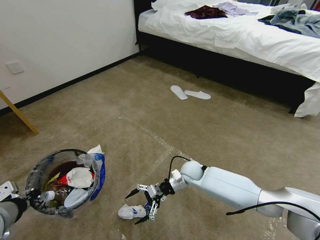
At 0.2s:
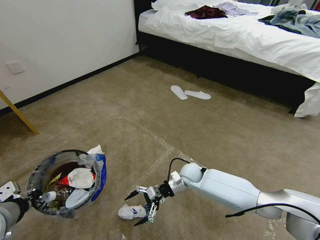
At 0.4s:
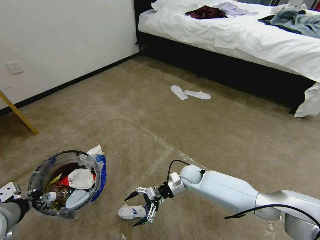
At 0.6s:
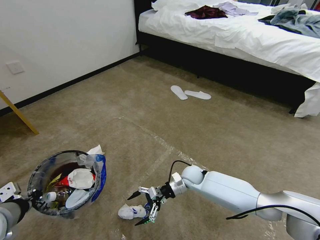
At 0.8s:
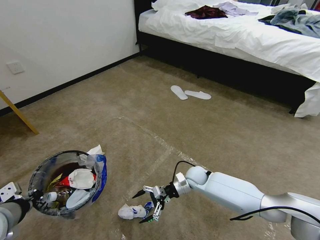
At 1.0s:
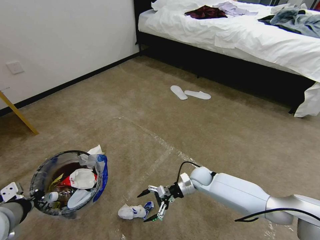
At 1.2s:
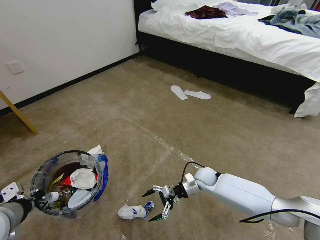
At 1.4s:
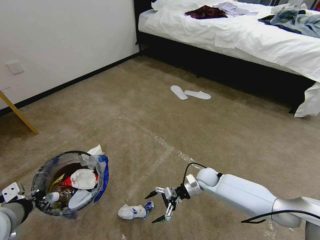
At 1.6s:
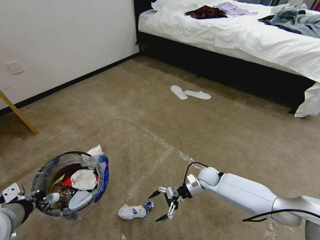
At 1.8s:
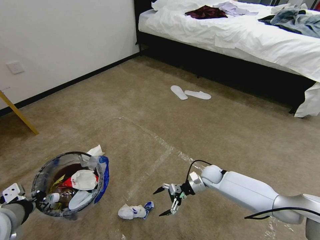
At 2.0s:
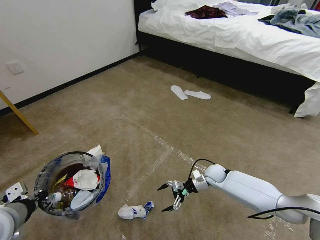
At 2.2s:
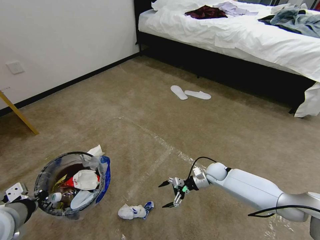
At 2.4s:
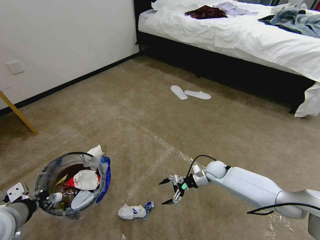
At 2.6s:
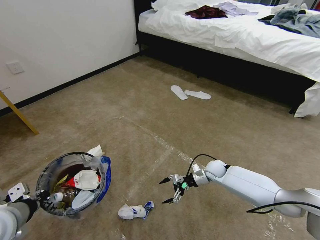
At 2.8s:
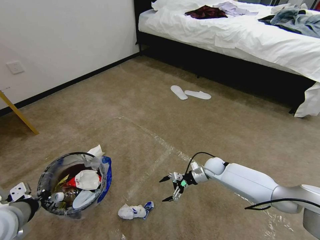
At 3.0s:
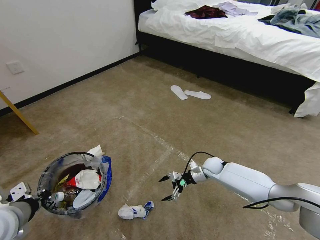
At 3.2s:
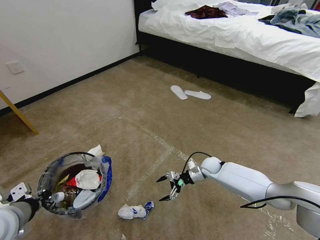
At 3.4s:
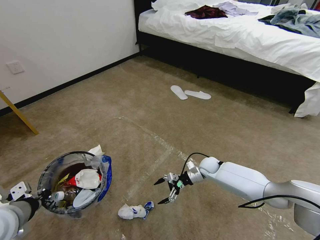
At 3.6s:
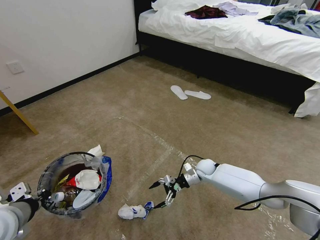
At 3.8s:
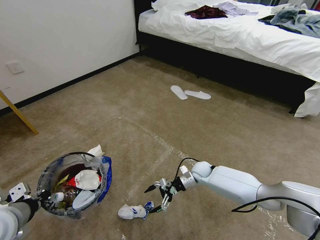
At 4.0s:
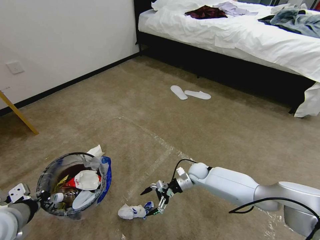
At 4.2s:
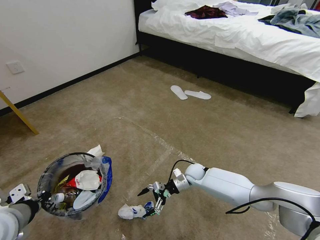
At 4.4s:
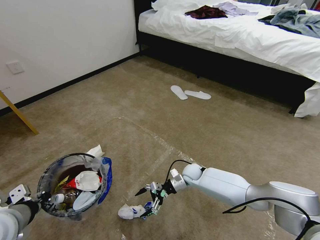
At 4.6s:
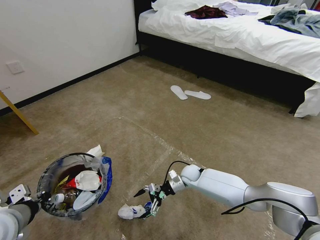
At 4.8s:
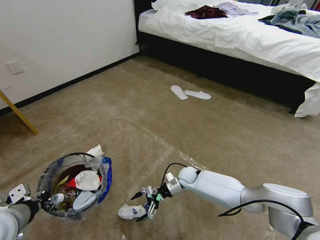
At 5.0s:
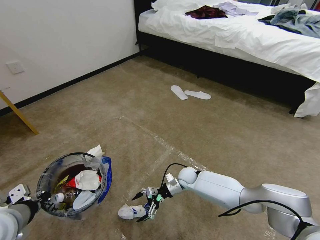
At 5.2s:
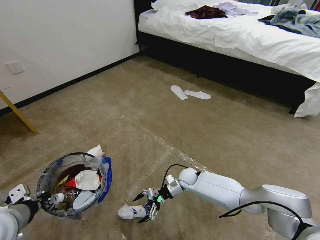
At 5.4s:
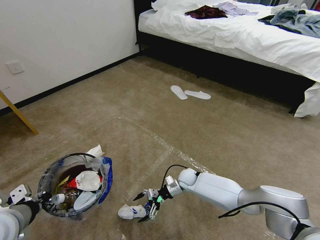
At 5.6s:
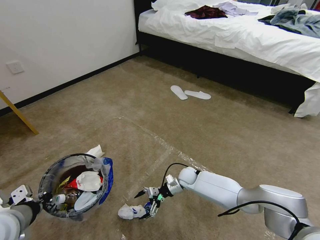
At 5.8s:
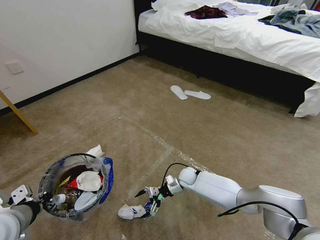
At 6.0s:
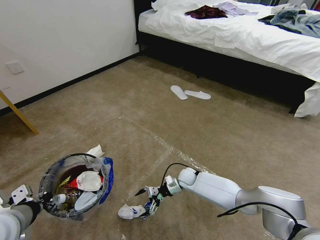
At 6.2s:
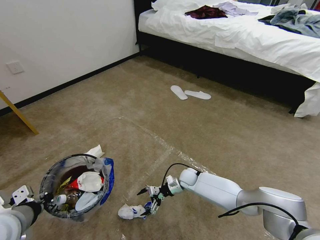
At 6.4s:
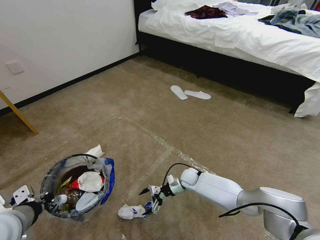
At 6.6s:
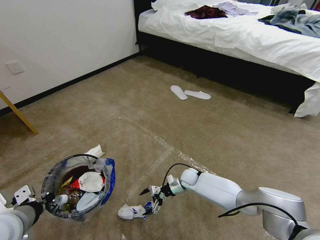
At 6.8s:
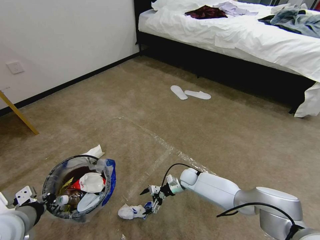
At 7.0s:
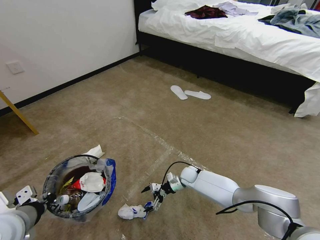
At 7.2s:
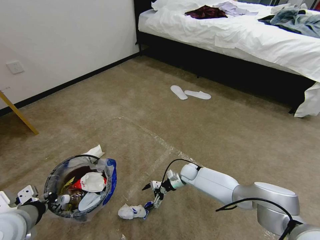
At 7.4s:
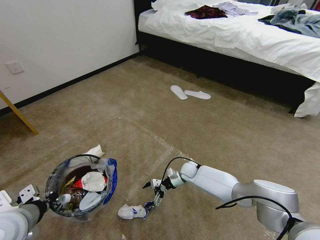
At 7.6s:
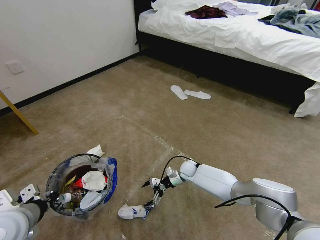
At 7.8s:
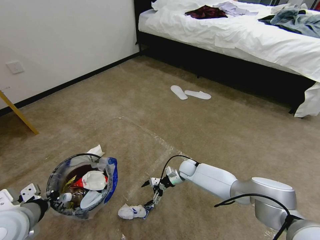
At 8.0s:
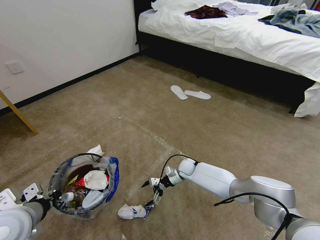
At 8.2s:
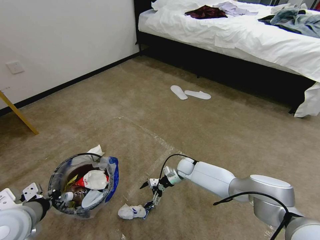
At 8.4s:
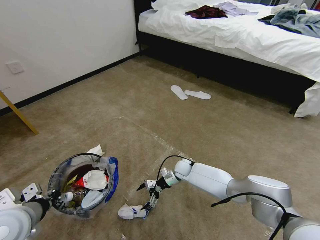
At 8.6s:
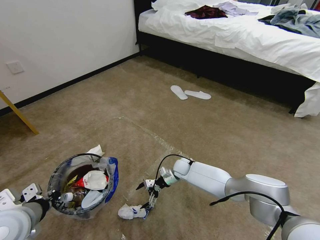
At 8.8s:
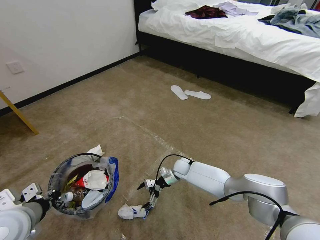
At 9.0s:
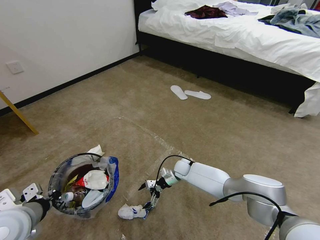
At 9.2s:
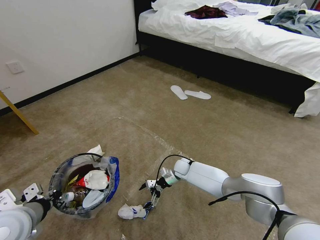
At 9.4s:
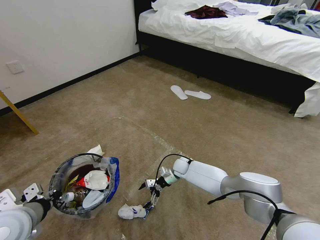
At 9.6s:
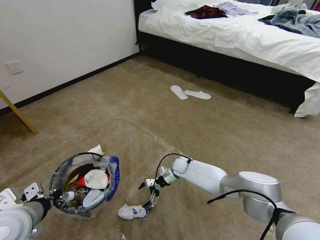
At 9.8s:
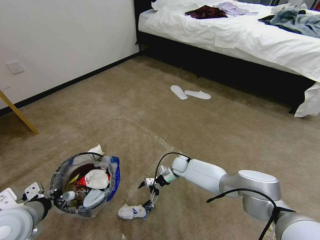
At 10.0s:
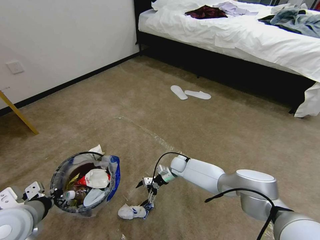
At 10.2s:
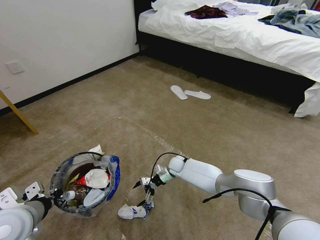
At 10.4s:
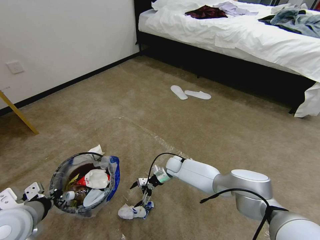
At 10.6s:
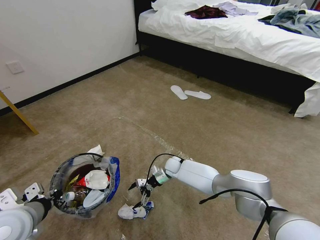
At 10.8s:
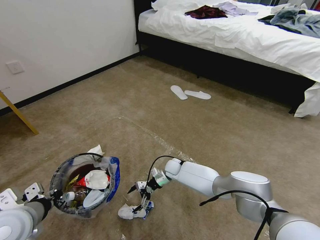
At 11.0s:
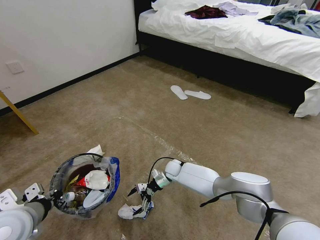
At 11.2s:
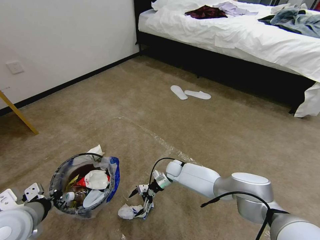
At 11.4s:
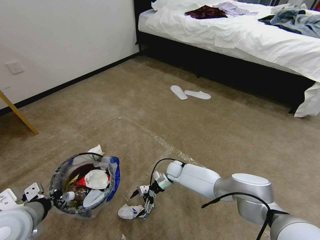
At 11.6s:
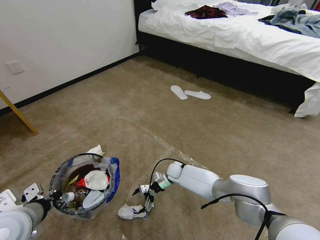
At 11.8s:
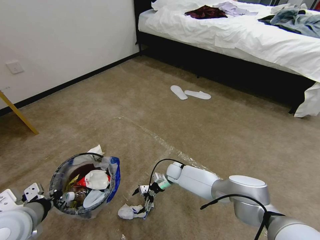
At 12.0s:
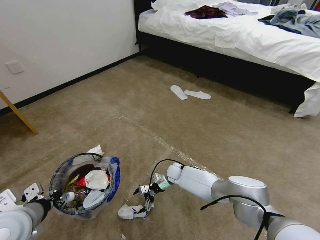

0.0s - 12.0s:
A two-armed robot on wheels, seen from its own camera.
Task of the whole recording: Pick up the trash bin and place the garbage on the floor into it.
0.0s - 1.6s: The right gripper shifts some 10 cm to the right.
1.6s - 3.0s: The right gripper moves about 5 cm.
3.0s - 4.4s: The right gripper goes some 10 cm to the left.
4.4s - 9.0s: The grippers make only small movements.
9.0s - 12.0s: There are only small adjustments of the grippers.

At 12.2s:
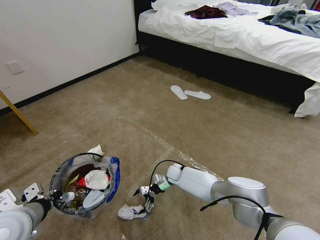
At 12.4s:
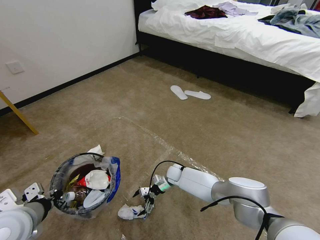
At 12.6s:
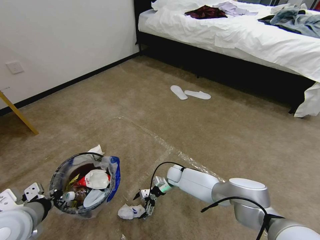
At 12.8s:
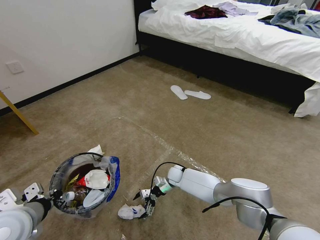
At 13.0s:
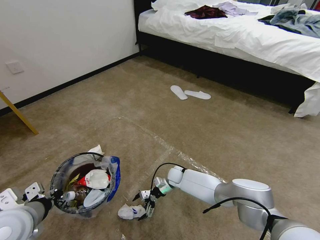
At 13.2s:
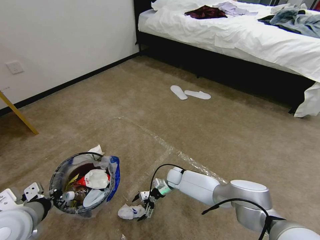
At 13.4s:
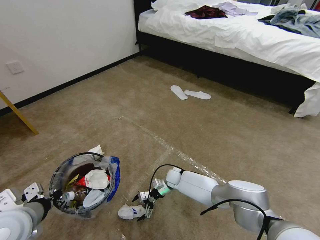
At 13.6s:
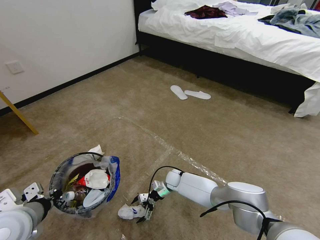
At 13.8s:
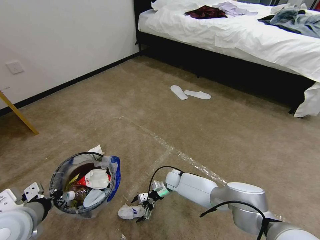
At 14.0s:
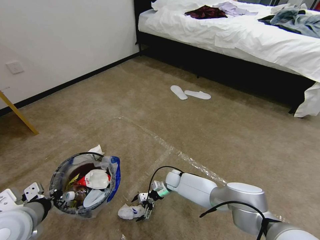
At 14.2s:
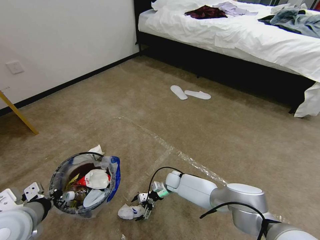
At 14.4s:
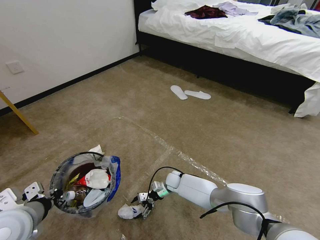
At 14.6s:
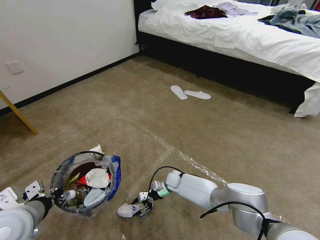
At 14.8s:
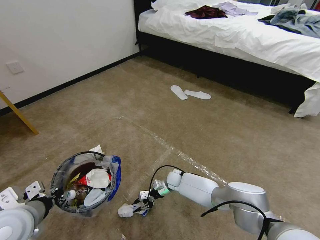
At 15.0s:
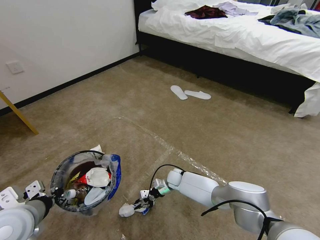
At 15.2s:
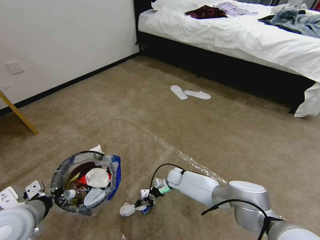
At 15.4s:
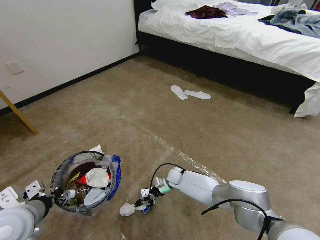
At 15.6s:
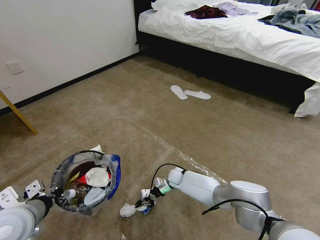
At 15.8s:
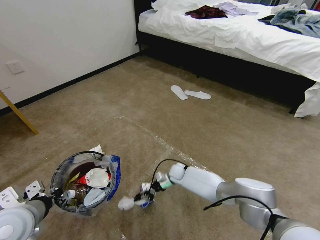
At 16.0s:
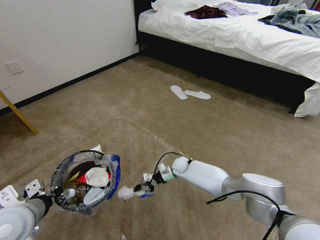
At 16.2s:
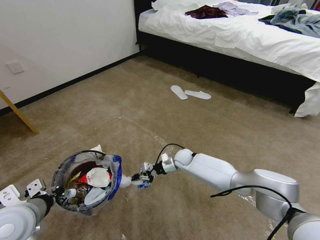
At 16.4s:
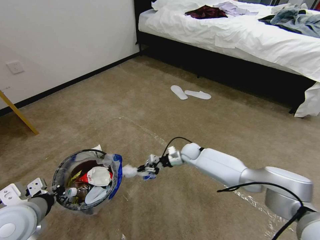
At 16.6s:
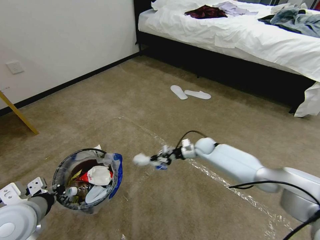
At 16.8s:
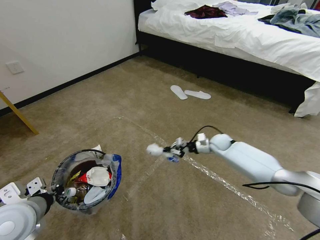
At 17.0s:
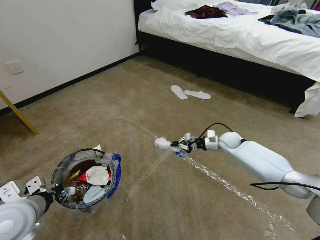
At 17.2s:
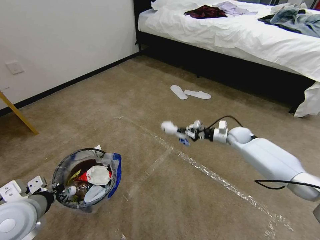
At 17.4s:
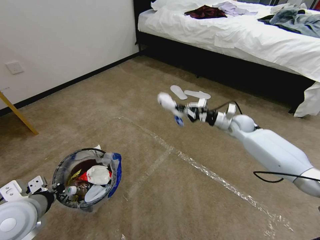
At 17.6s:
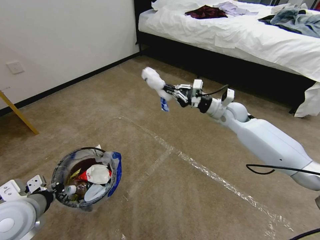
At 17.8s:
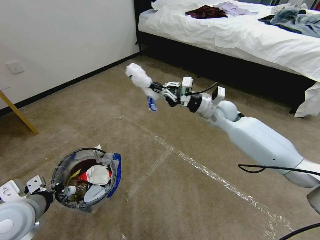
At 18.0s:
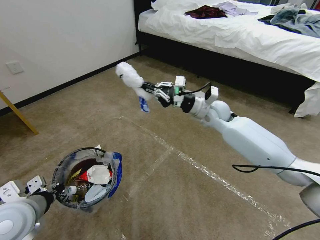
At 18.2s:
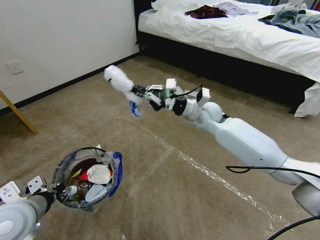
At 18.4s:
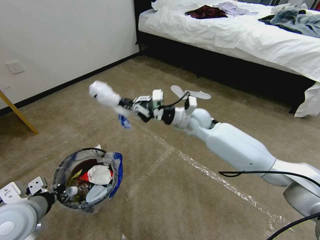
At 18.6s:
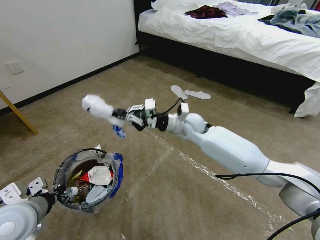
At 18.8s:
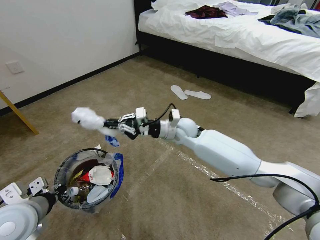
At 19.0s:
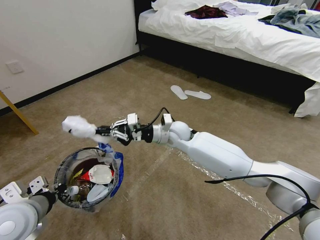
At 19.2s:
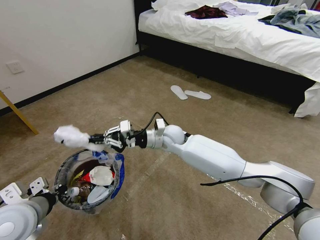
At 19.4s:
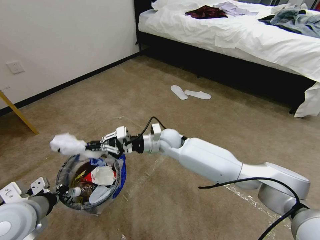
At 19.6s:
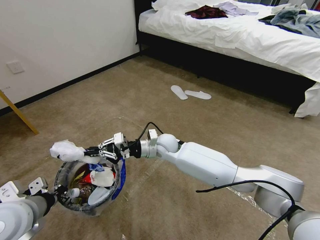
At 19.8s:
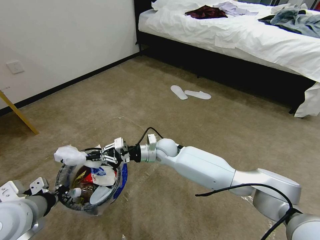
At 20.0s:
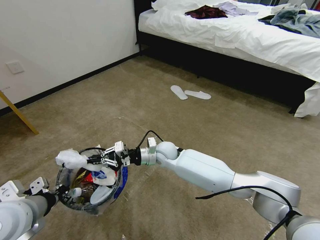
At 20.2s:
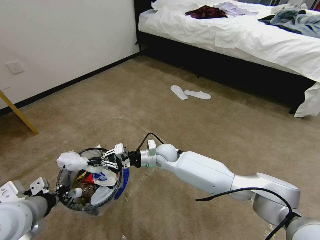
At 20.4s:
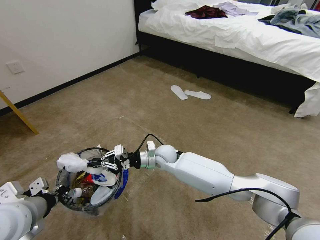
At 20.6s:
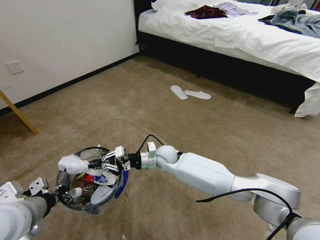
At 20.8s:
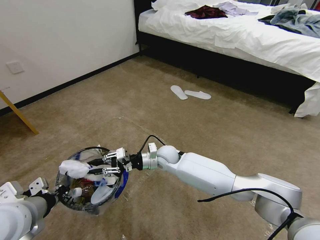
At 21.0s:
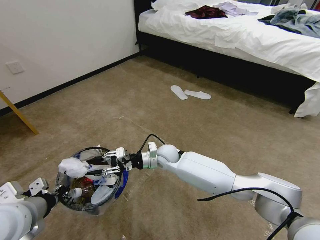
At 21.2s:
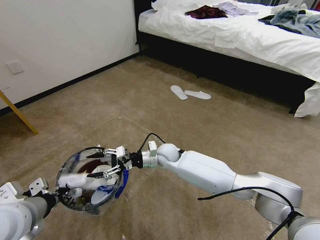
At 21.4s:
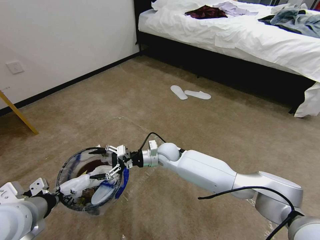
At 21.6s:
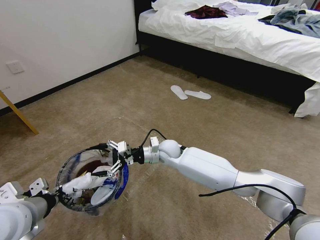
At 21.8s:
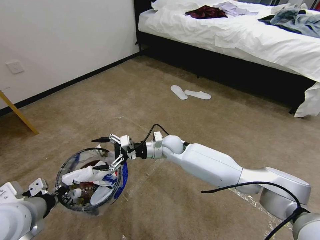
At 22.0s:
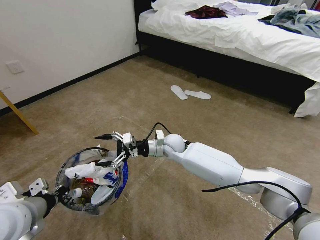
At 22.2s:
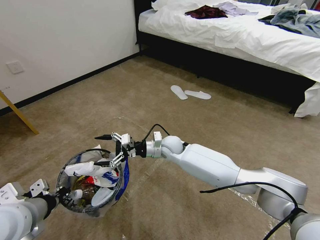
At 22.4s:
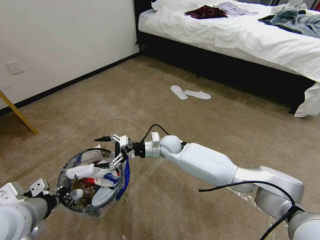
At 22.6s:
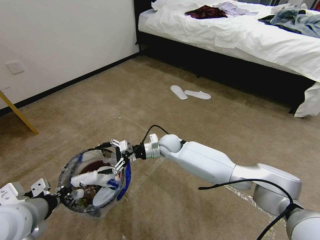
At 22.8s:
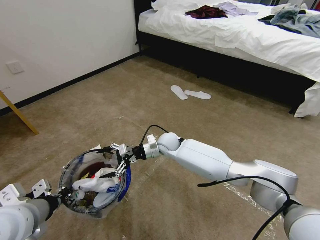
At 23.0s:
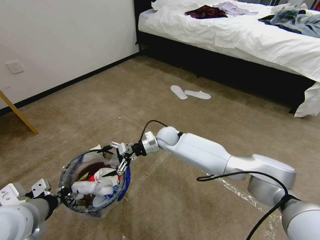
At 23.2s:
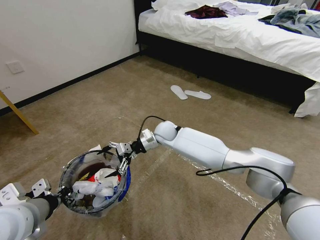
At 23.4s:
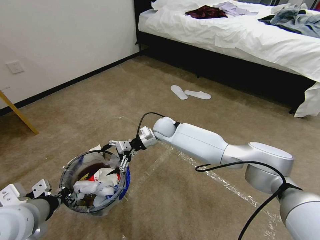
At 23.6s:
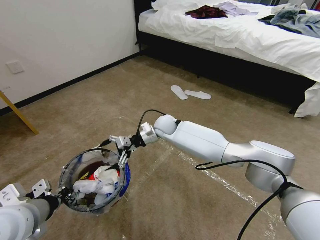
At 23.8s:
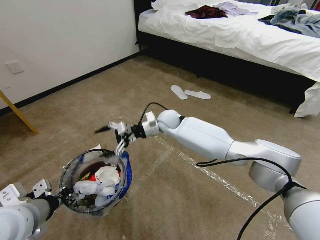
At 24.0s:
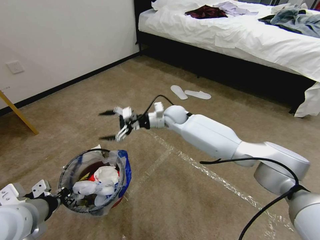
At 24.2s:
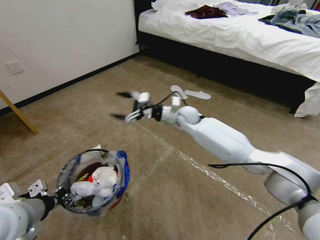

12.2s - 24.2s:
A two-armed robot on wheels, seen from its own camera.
Task of the whole recording: Pick up the trash bin and place the garbage on the floor into it.
12.2s - 13.8s: The grippers move only a little.
13.8s - 15.2s: The right gripper closes.
15.2s - 16.6s: The right gripper heads upward, to the right and forward, covering about 20 cm.
16.6s - 18.2s: The right gripper shifts roughly 20 cm upward.
18.2s - 19.8s: The right gripper travels to the left and downward by approximately 20 cm.
19.8s - 21.2s: The right gripper opens its fingers.
21.2s - 22.6s: There are only small adjustments of the grippers.
22.6s - 24.2s: The right gripper goes roughly 15 cm upward, forward and to the right.
